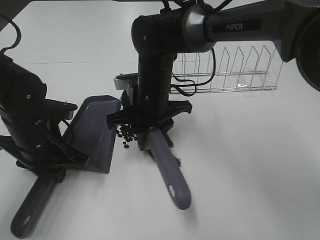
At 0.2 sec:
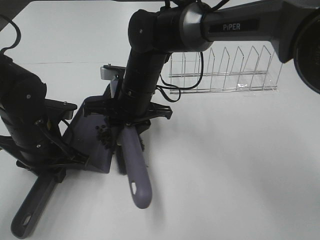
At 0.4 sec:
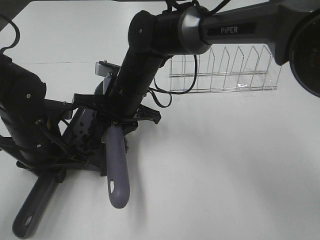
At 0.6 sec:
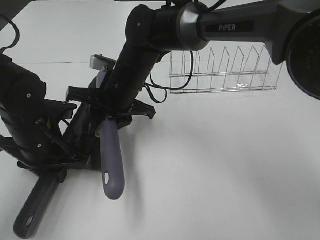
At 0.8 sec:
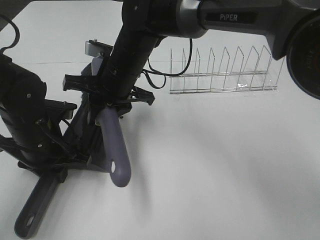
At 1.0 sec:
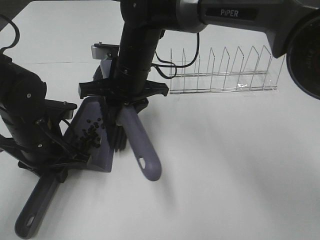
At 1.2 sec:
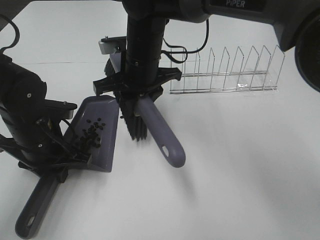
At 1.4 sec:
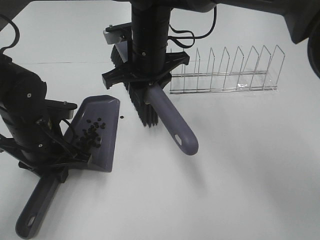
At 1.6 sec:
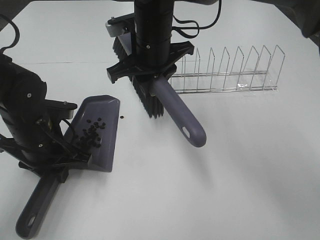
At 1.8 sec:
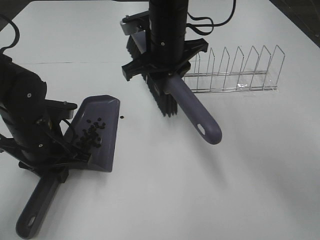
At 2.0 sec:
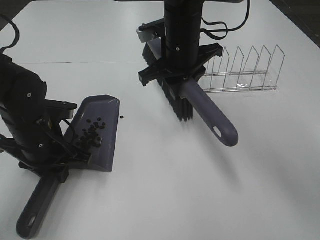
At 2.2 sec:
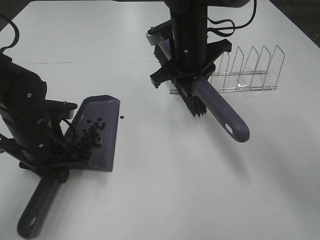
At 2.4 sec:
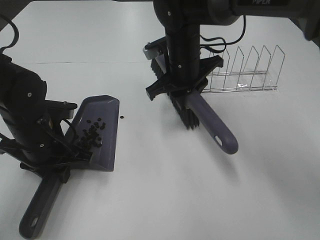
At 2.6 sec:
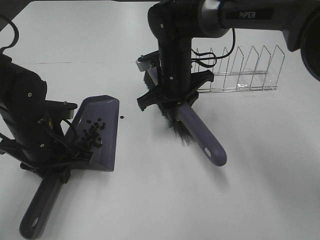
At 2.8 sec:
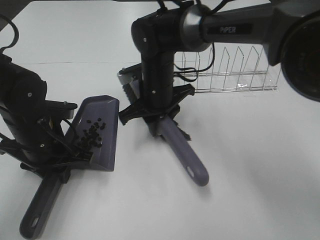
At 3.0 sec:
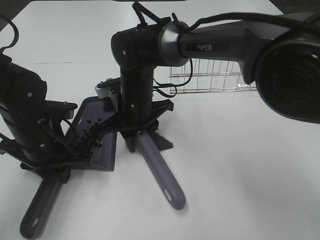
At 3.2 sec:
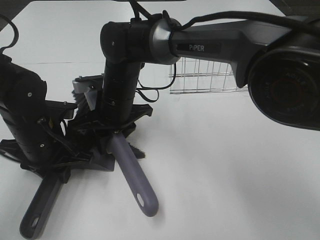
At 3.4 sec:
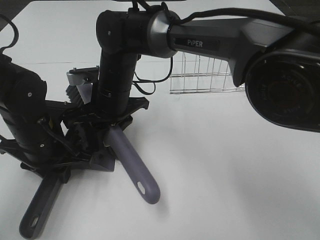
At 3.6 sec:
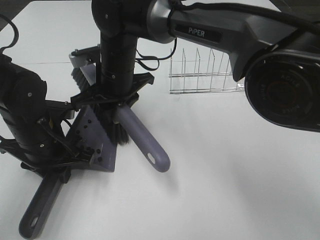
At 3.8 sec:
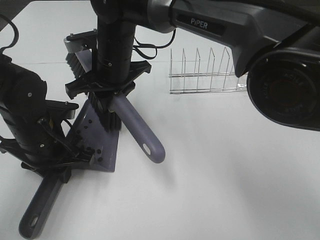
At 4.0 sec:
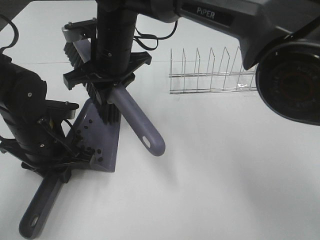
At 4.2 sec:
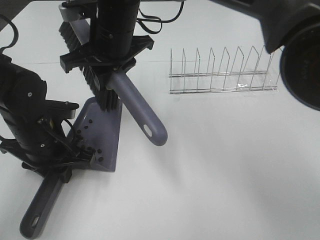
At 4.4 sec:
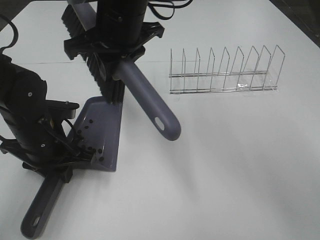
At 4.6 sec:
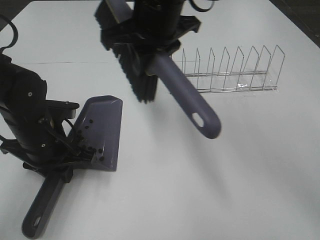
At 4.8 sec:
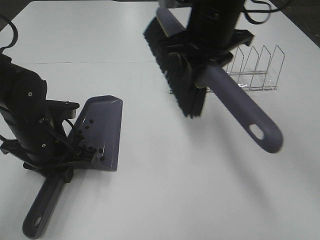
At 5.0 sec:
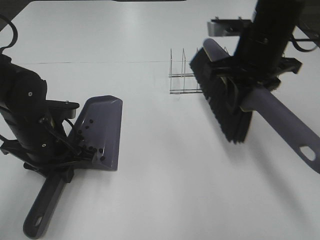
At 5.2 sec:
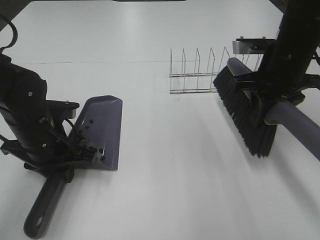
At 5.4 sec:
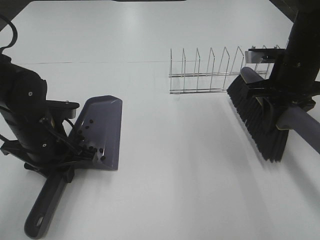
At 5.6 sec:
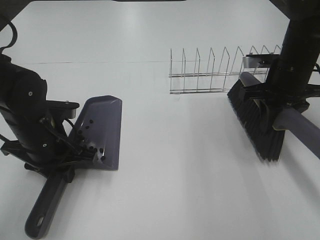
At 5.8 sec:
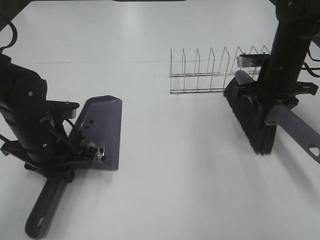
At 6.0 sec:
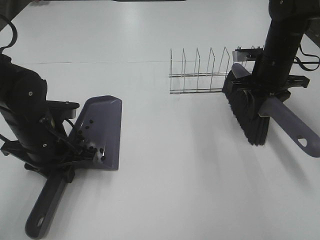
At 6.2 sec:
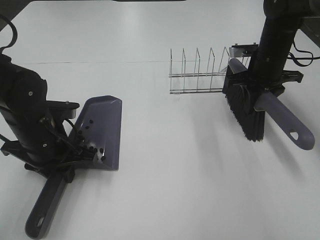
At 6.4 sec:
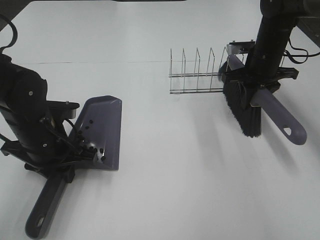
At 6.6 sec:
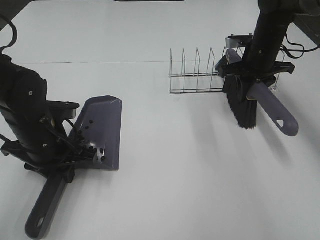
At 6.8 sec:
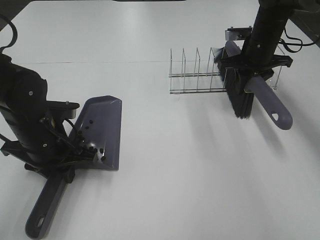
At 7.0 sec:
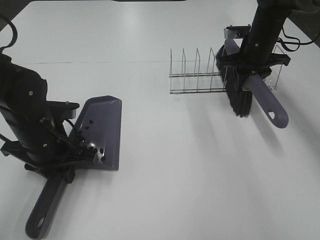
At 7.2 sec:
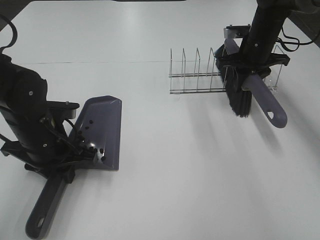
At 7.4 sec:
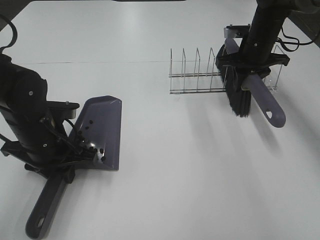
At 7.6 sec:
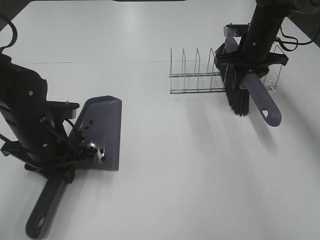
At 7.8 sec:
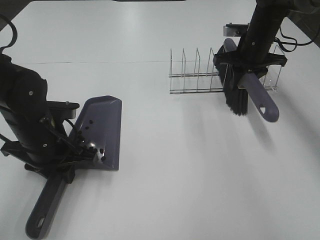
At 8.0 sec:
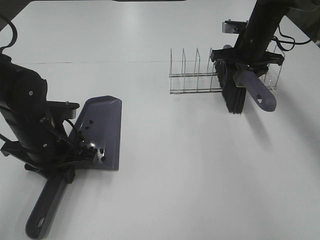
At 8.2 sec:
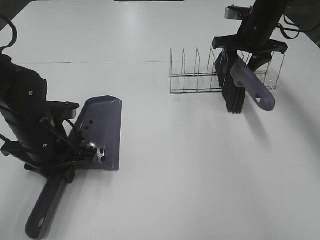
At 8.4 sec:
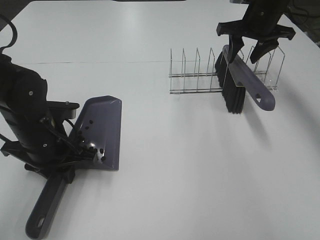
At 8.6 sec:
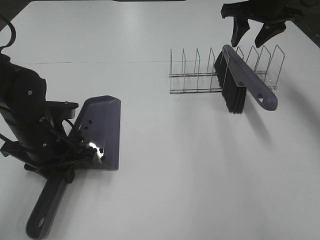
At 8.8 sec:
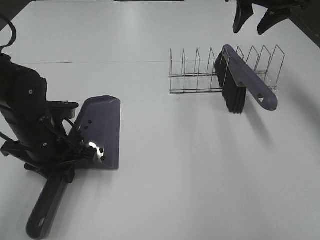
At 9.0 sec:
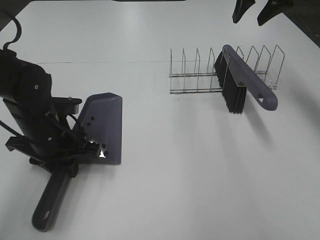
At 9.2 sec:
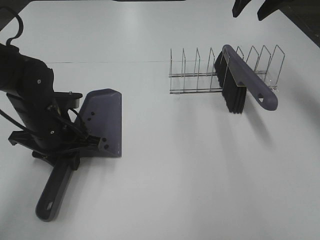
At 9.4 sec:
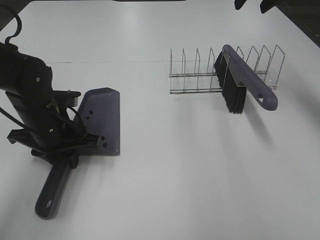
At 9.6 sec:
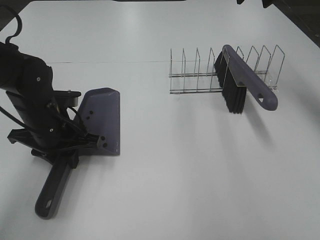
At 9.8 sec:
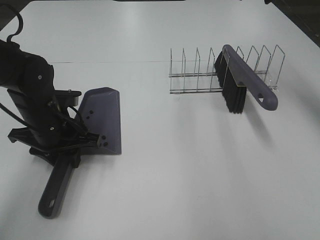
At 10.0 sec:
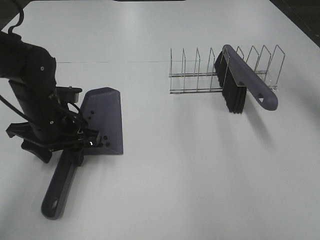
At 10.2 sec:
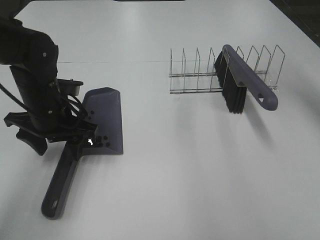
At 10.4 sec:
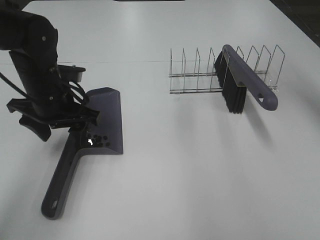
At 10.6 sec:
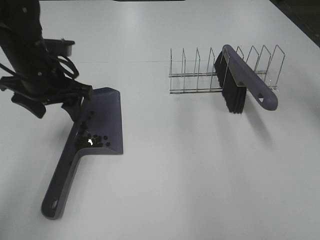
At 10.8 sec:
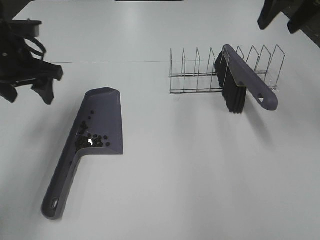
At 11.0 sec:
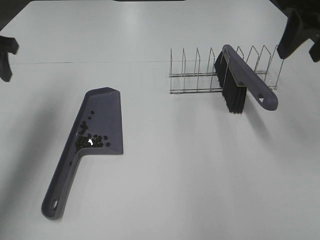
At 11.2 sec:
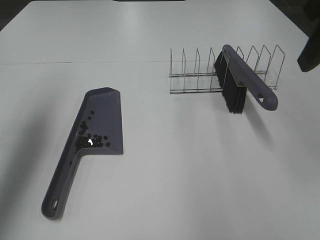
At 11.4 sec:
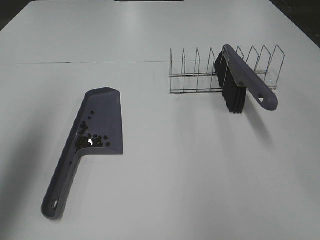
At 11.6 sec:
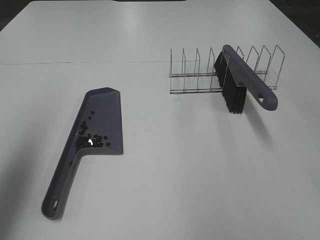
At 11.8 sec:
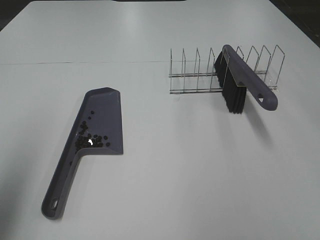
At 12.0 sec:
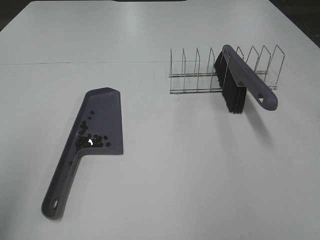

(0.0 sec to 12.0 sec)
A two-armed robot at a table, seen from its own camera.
Task of the whole recording: Sweep Coffee Bean.
Step, 0.0 sec - 3.6 sec: Right hand:sweep the coffee beans into the dustpan.
Step, 3.8 sec - 8.2 sec: Right hand:place the broom on the rack.
Step, 8.4 sec - 10.2 sec: Left hand:place the dustpan on the table.
0.0 sec - 1.6 sec: The right gripper moves upward, approximately 10 cm.
1.6 sec - 3.0 sec: The right gripper travels downward by roughly 10 cm.
3.0 sec - 4.4 sec: The right gripper shifts approximately 15 cm upward.
4.4 sec - 6.0 sec: The right gripper moves to the right and downward, some 30 cm.
6.0 sec - 7.6 sec: The right gripper travels forward by about 5 cm.
7.6 sec - 9.0 sec: The right gripper moves upward, about 15 cm.
9.0 sec - 10.4 sec: The grippers both shift upward by approximately 5 cm. The left gripper opens its fingers.
10.4 sec - 12.0 sec: The left gripper heads backward, upward and to the left, covering approximately 35 cm.

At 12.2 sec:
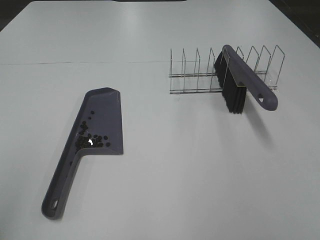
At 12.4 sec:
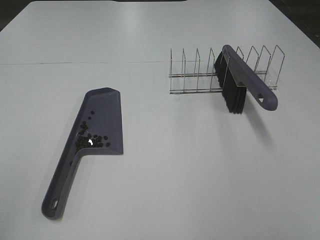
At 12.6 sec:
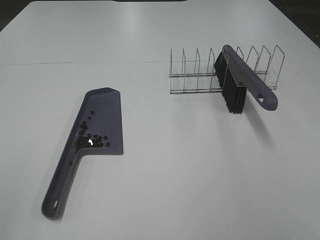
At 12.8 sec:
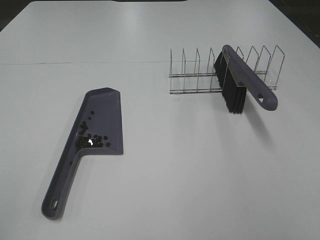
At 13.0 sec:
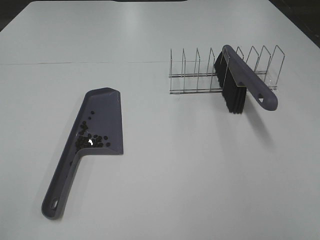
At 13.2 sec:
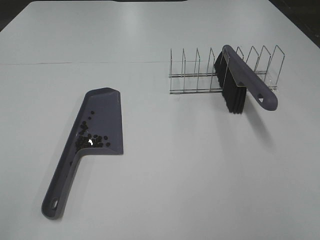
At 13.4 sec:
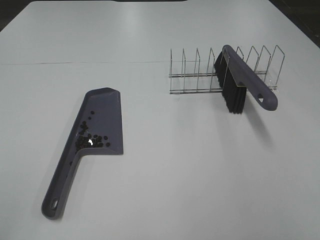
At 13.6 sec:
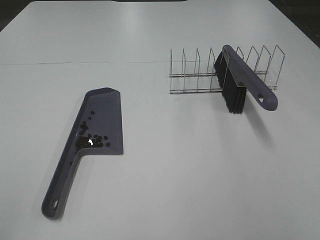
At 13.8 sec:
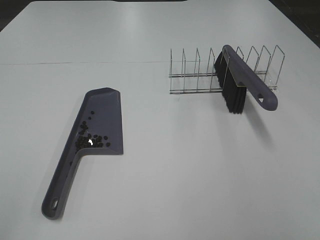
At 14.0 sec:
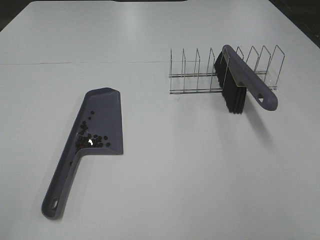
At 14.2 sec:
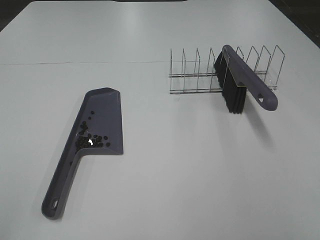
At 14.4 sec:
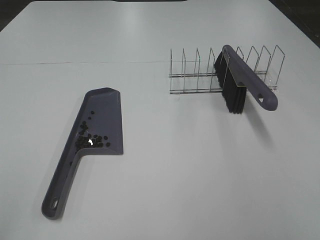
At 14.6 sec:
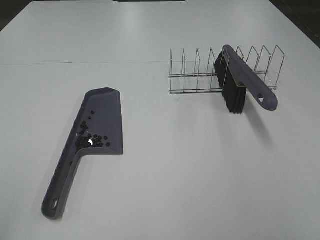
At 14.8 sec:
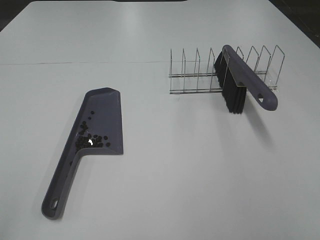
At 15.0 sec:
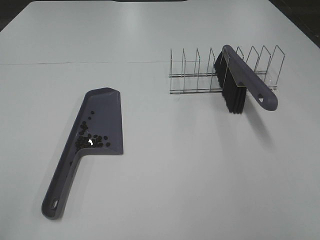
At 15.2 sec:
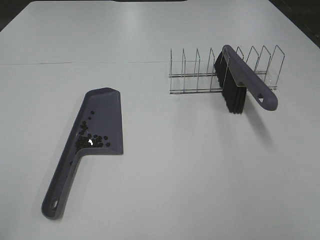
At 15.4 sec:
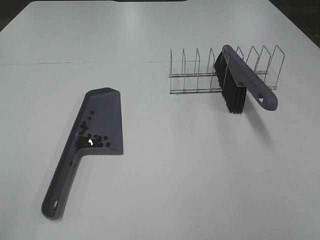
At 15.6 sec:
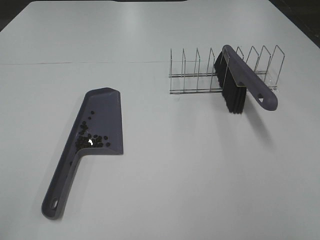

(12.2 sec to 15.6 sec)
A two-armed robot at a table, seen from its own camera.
Task of the whole recording: Sweep Coffee Bean.
13.8 sec - 15.6 sec: Both grippers stay put.
